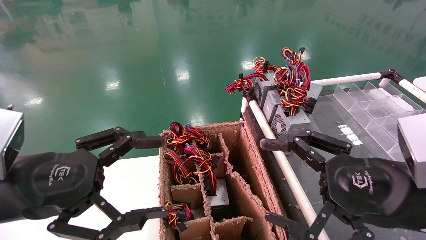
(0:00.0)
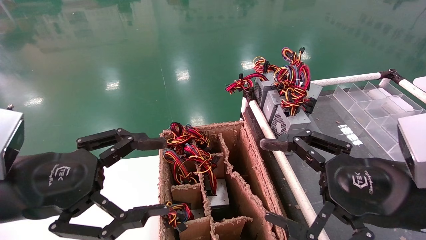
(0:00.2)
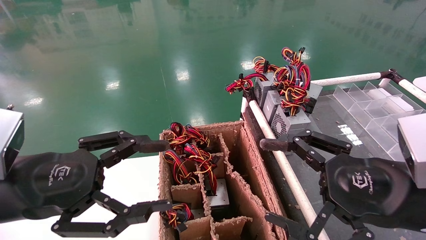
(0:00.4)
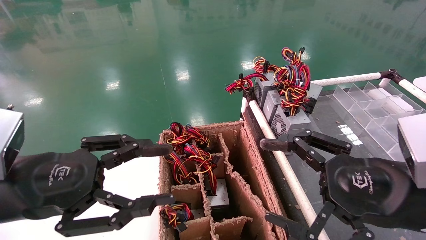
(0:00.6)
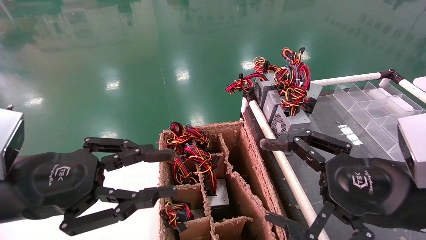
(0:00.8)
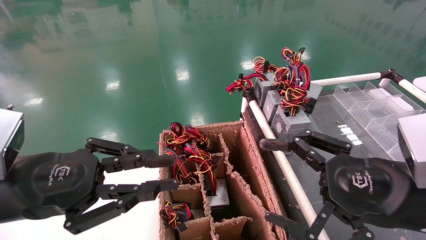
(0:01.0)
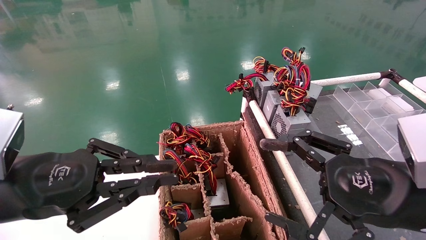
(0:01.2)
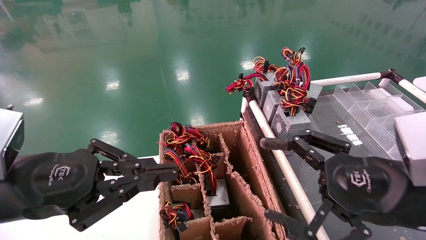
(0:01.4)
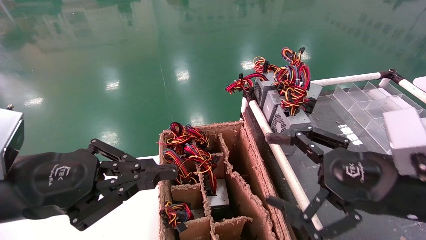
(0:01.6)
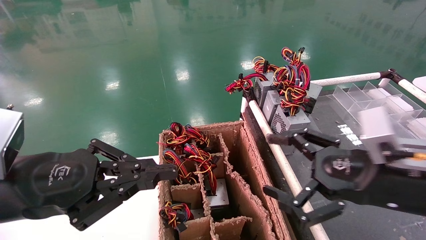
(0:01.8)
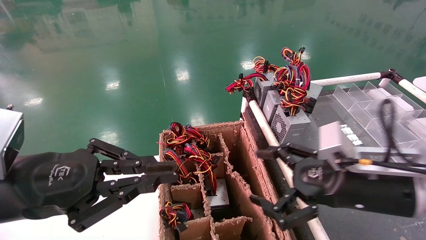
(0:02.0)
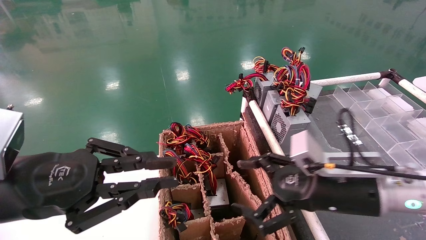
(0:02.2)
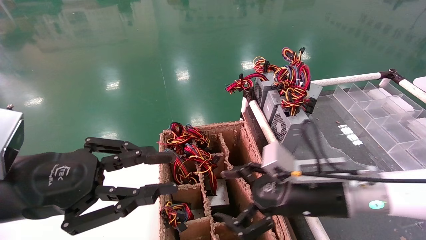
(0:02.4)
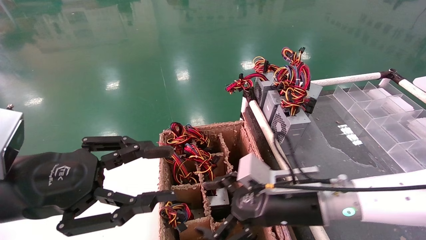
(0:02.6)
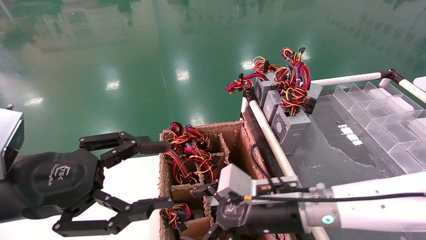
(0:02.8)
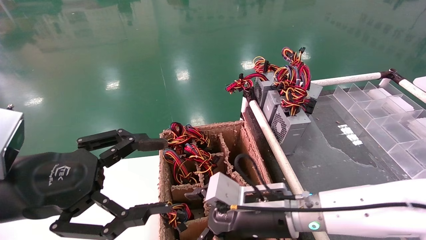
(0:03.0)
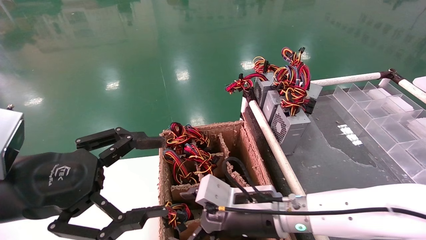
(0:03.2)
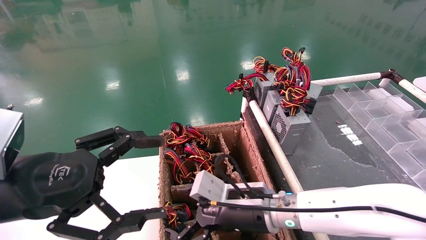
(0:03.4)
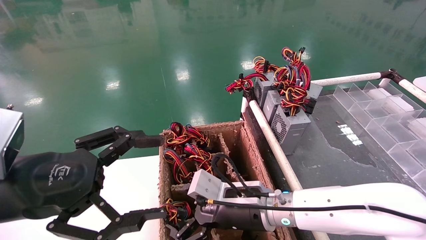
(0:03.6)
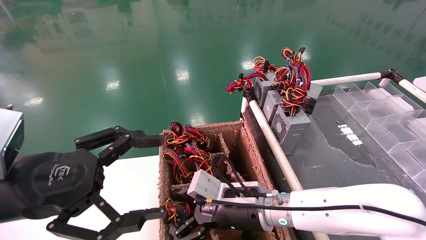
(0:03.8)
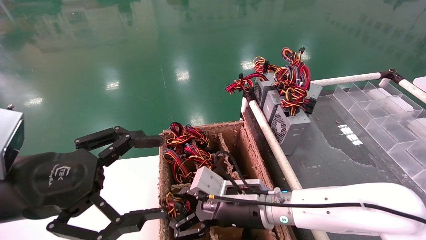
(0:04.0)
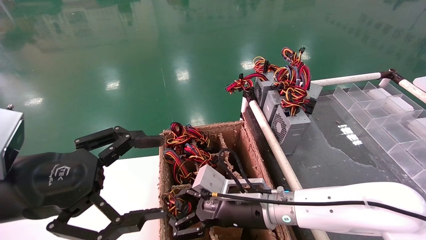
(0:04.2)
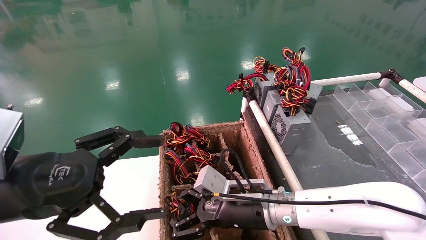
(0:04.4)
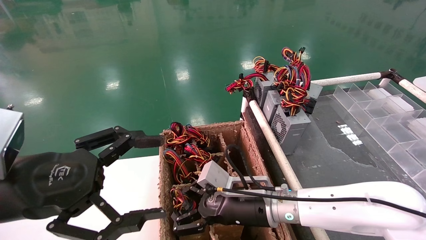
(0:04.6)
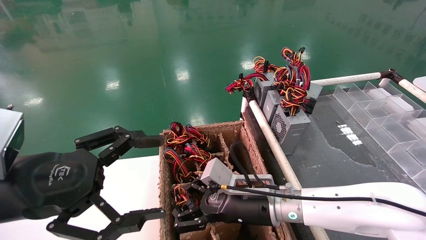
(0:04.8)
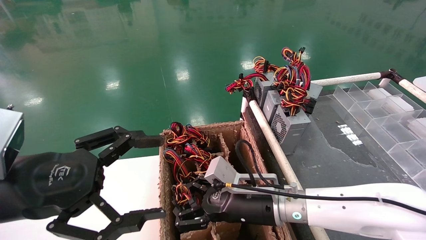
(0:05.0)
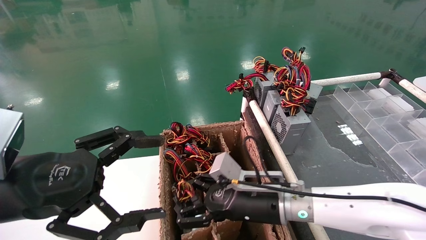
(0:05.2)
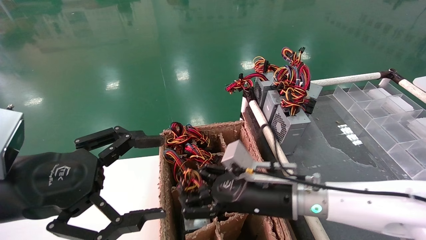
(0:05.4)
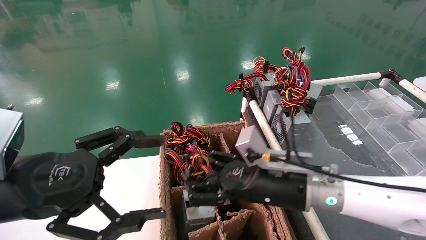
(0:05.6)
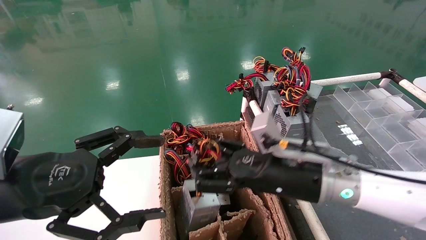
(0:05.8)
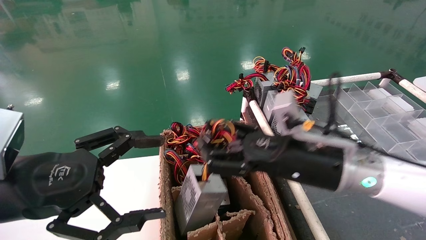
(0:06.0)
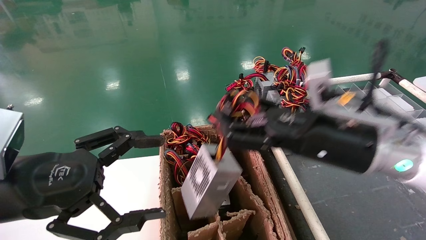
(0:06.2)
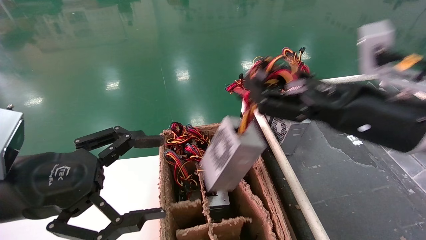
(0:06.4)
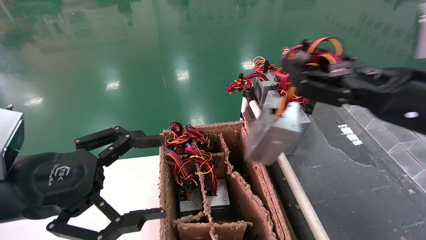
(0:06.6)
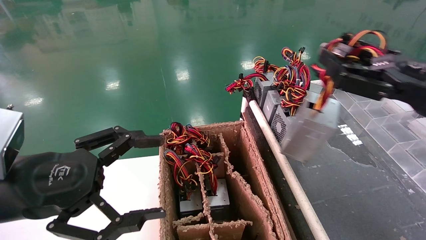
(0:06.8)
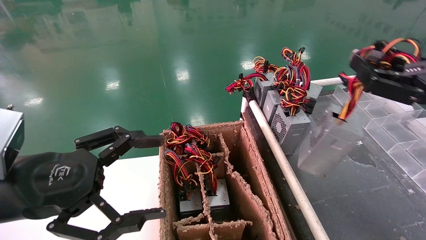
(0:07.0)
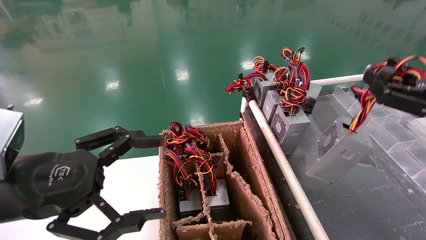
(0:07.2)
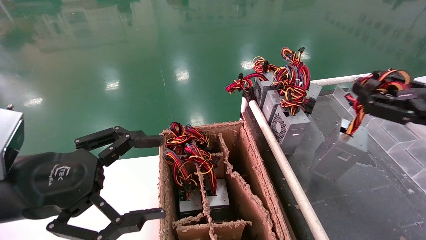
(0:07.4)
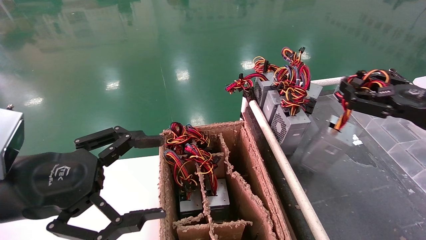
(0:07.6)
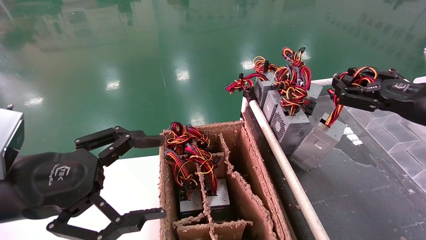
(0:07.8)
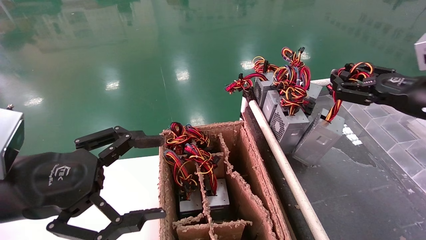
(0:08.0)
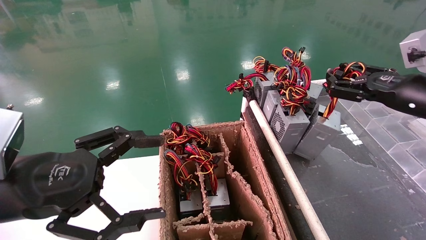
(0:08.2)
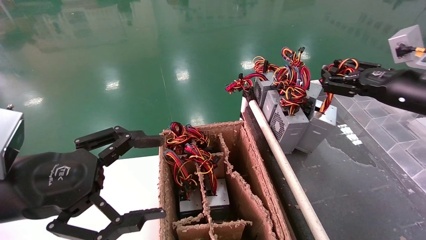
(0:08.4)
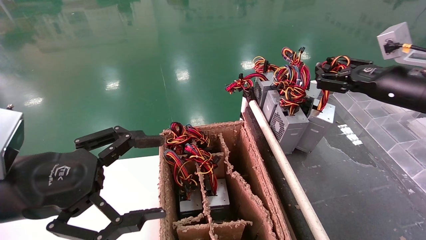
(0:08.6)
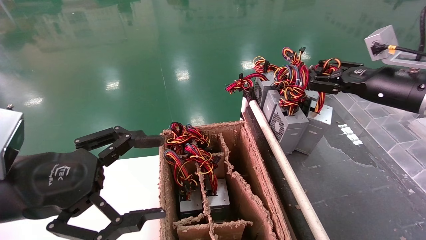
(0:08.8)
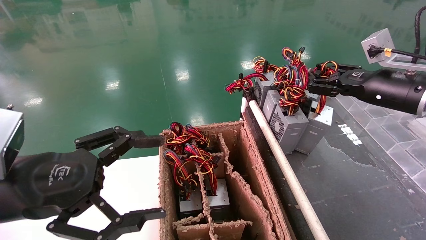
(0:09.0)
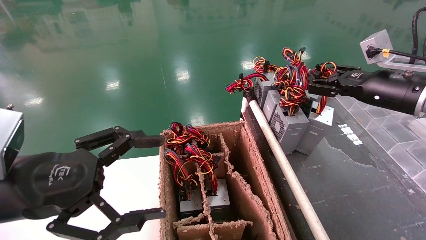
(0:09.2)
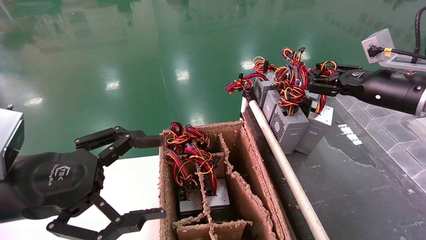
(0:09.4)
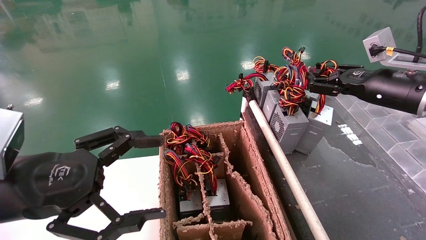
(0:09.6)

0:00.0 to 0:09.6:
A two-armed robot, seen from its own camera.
Step, 0:01.4 to 0:05.2: Grab and lift the power supply from the large box.
0:00.0 to 0:01.6: The left gripper closes its fingers.
0:01.6 to 0:03.2: The left gripper opens its fingers; the right gripper heads to the left, downward and forward, covering roughly 25 cm.
0:03.2 to 0:04.8: The right gripper closes its fingers.
0:04.8 to 0:06.4: The right gripper moves upward and to the right, some 25 cm.
0:06.4 to 0:08.0: The right gripper shifts some 15 cm to the right.
0:08.0 to 0:09.6: The right gripper moves forward, about 5 cm.

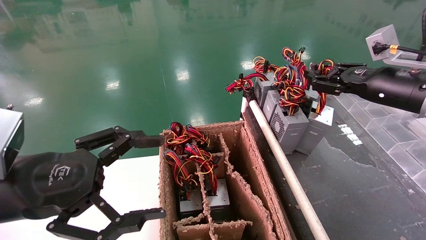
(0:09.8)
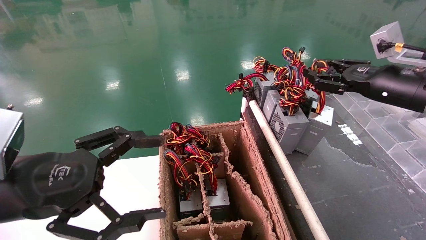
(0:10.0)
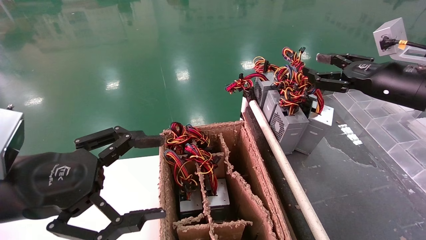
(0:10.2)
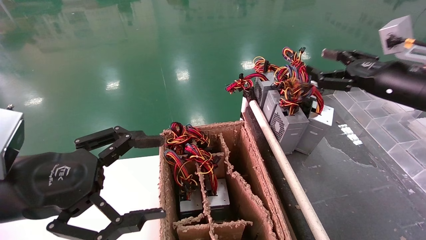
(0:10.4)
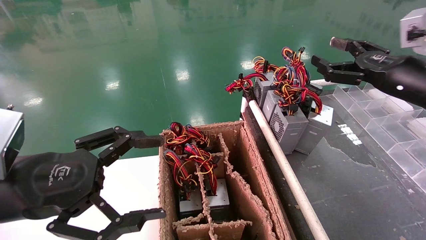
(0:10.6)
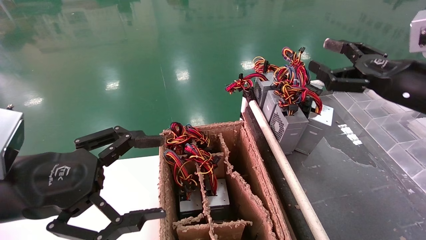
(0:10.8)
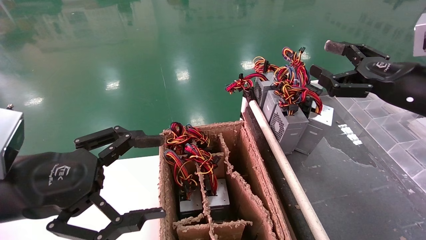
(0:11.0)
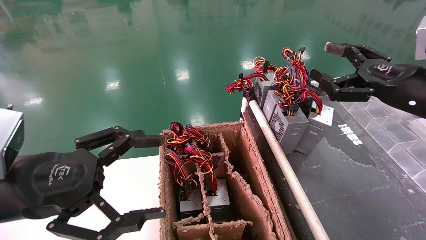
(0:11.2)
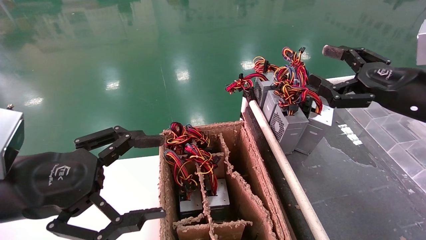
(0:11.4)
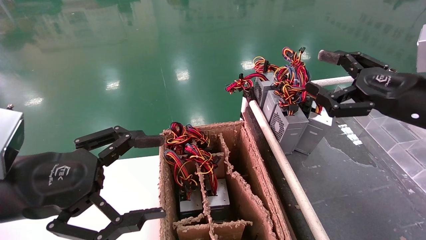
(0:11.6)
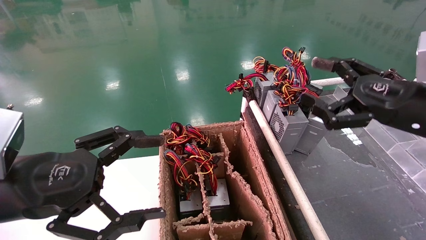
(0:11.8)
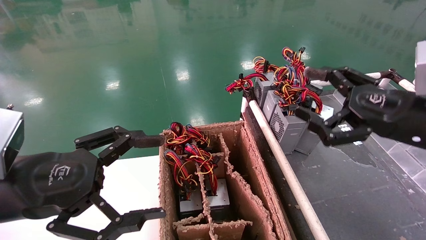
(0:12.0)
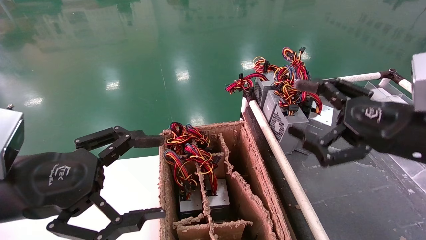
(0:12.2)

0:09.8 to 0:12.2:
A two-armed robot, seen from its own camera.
Step, 0:09.8 to 0:12.2: Place the power supply on the operating table.
0:09.8 to 0:11.0: The right gripper opens up.
0:11.0 to 0:12.2: The right gripper moves backward and to the left, approximately 10 cm.
